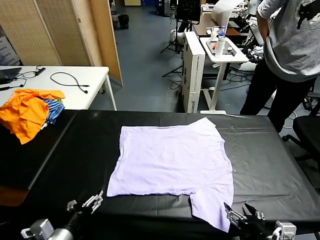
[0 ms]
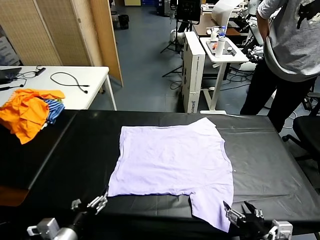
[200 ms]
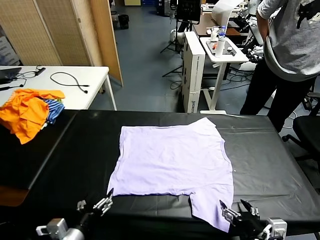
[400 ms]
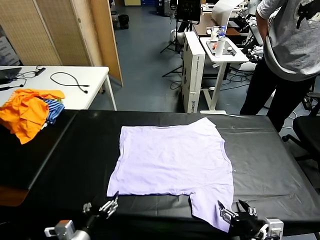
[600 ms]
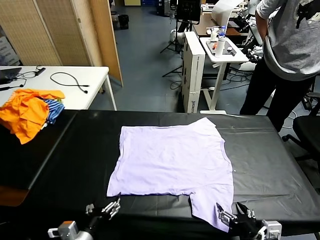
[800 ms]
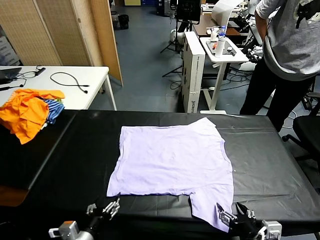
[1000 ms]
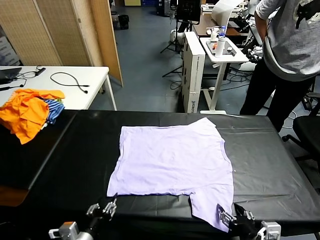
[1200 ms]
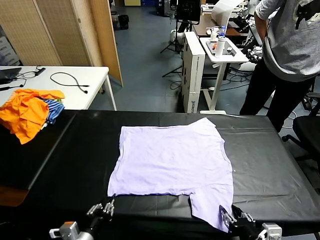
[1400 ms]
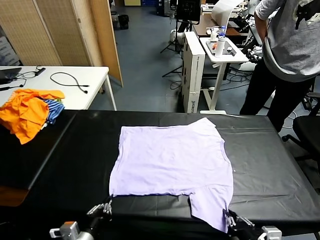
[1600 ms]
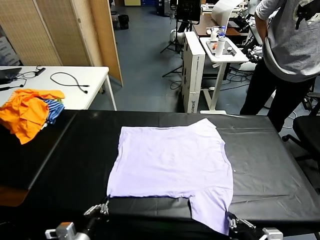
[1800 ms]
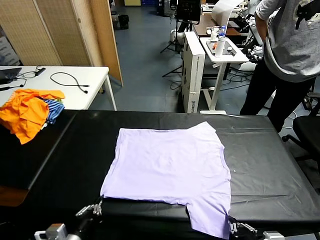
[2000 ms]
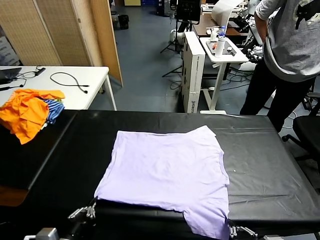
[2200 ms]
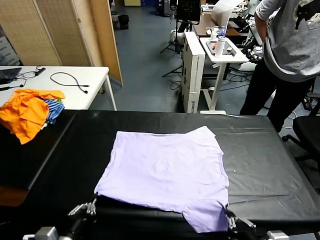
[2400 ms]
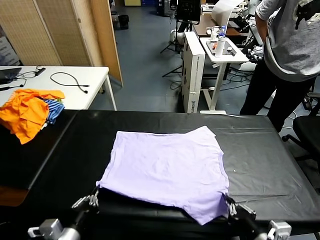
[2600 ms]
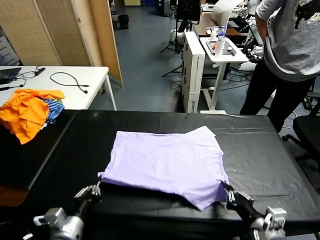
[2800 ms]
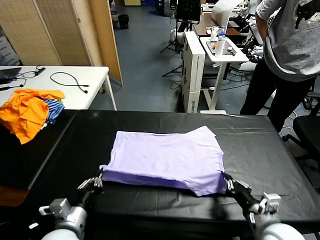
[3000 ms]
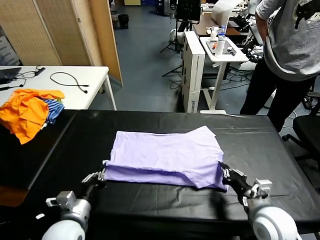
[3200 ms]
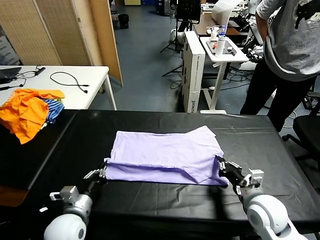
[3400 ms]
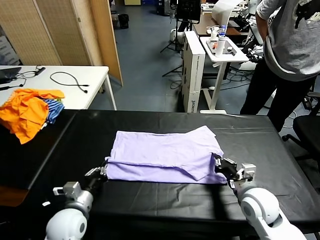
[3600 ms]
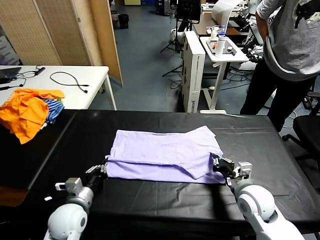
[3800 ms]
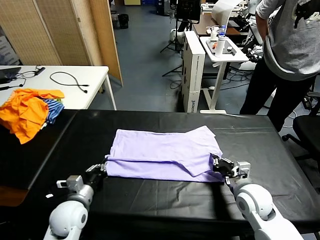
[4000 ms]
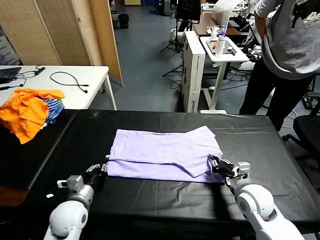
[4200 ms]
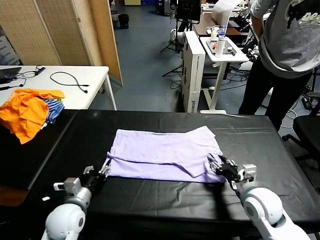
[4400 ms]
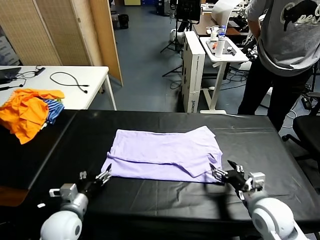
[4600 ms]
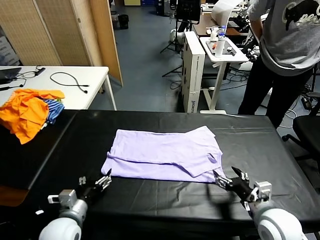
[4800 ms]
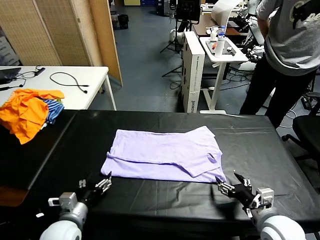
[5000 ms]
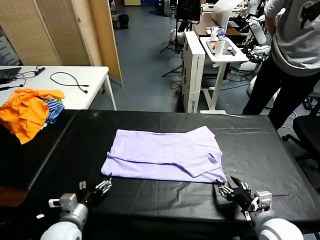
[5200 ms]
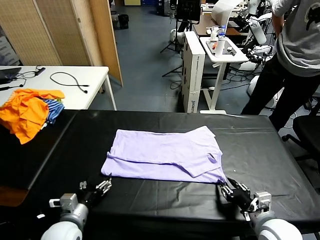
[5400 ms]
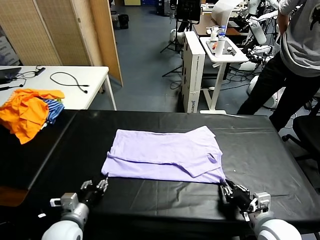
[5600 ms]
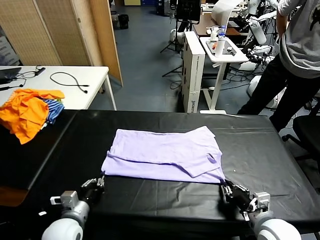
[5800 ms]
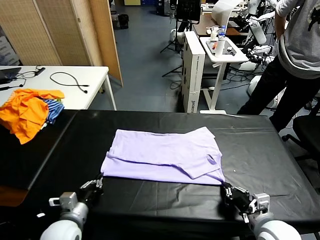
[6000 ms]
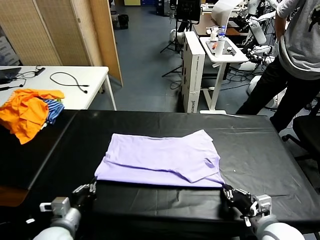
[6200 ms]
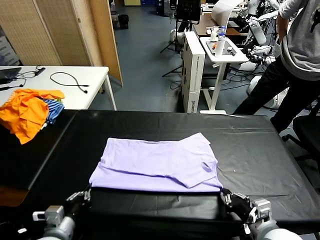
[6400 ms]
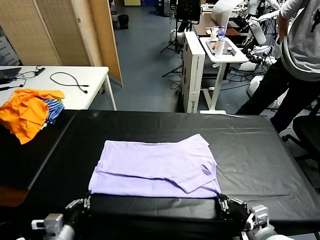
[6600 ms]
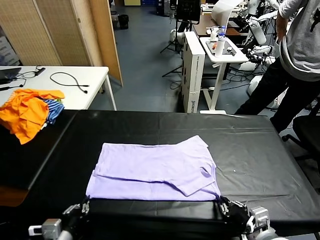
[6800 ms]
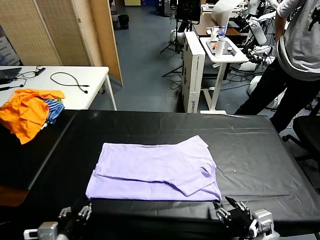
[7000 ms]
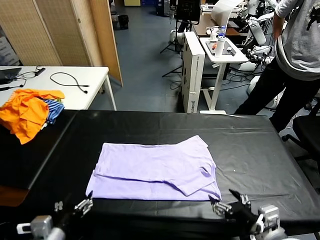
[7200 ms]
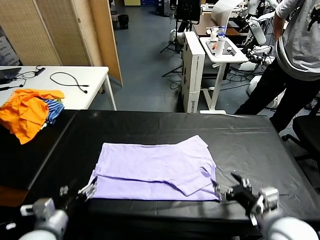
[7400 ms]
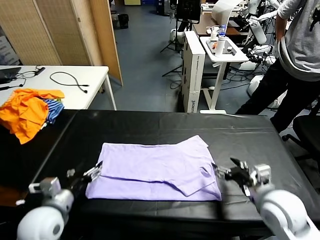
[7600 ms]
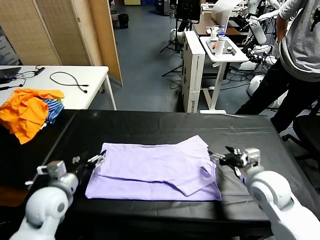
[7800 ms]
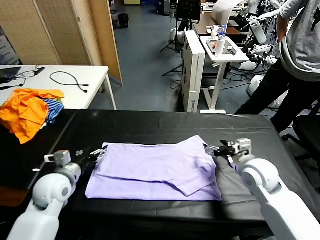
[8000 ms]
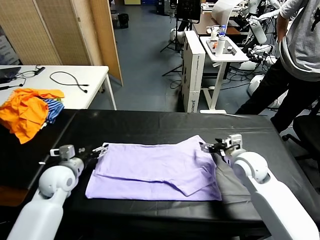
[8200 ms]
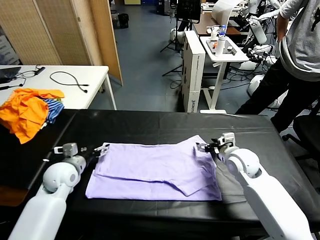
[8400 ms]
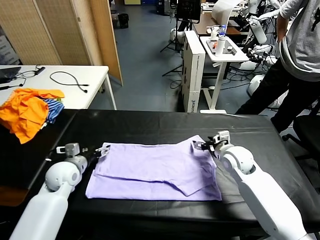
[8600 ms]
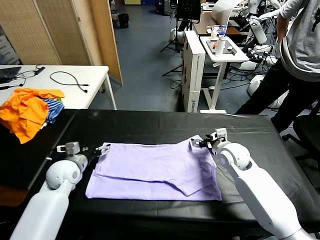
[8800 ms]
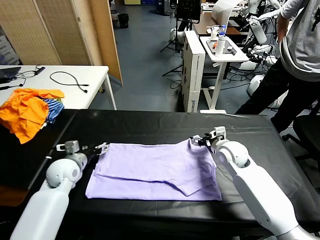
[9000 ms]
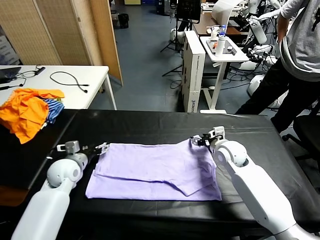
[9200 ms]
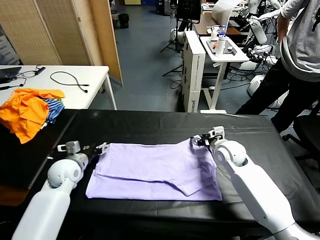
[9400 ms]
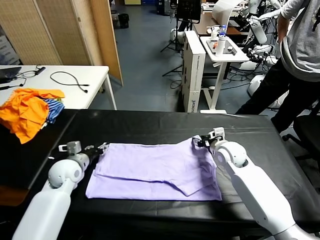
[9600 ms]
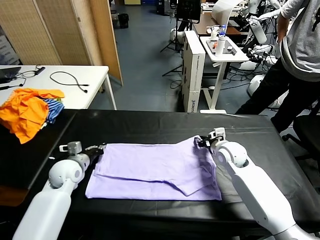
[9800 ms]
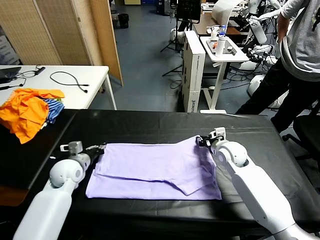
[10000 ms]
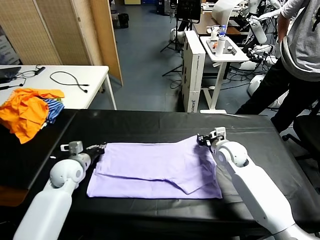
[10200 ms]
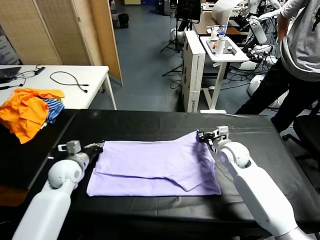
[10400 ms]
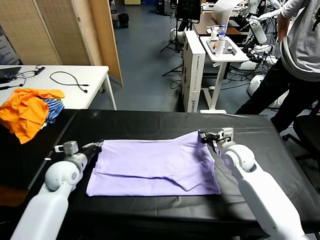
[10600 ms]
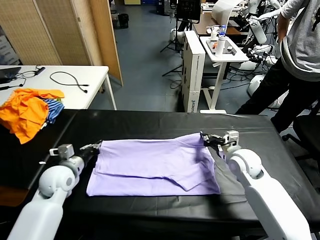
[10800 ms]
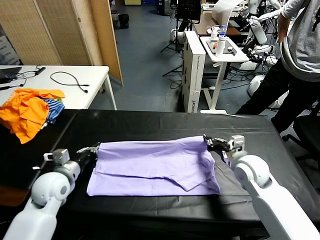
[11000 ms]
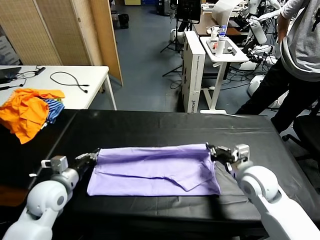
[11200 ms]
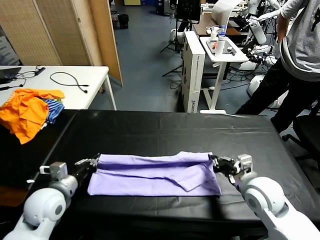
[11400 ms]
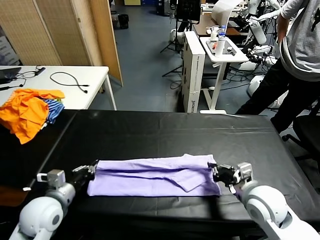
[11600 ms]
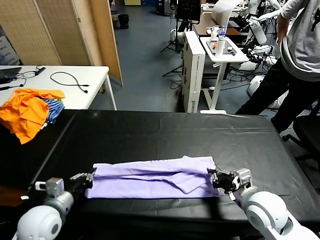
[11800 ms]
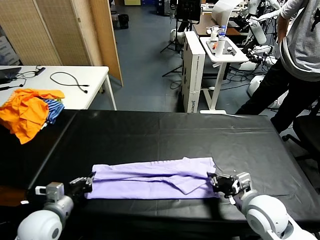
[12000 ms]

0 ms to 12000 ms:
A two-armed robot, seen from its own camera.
Task of the whole recording: fold and organize the clothes.
Step, 0 ms to 1600 ms: use both grippers simultaneously to clamp the lower edge of the clothing fabric.
Step, 1800 ms to 4400 ms: use both grippers to drag the lower edge of the fabric forward and fold it over the upper edge.
Step, 4600 ms to 7000 ms: Drag the clothes downward with both gripper.
Step, 7200 ms to 10000 ms: use both grippers simultaneously to clamp the upper edge of the clothing fabric.
1600 ms to 3000 ms: The left gripper heads forward, covering approximately 5 cm, while the right gripper moves forward, some 15 cm.
3000 ms to 4400 ms: The right gripper reaches approximately 5 cm forward, then returns, and opens. Meanwhile the left gripper moves approximately 5 cm, and opens.
4400 ms to 6000 ms: The left gripper closes up; the right gripper closes.
6000 ms to 7600 ms: The right gripper is displaced forward by roughly 15 cm, and opens; the left gripper is displaced upward by roughly 5 cm, and opens up.
7600 ms to 9000 ms: The left gripper shifts approximately 15 cm forward, while the right gripper is displaced forward and downward by some 15 cm.
9000 ms to 10400 ms: The right gripper closes. The left gripper closes its fingers.
10400 ms to 12000 ms: The two grippers go some 20 cm backward.

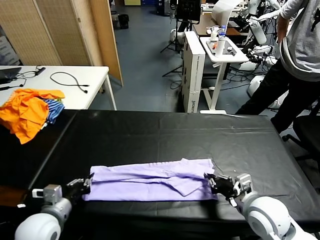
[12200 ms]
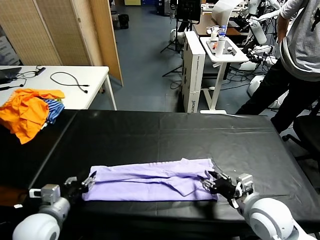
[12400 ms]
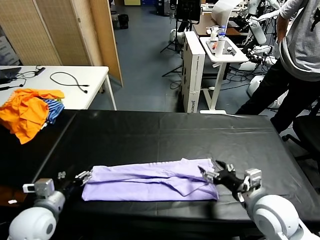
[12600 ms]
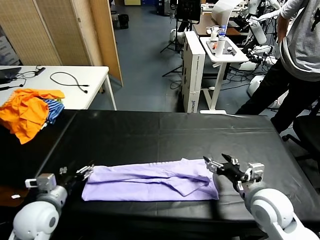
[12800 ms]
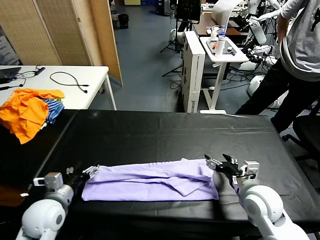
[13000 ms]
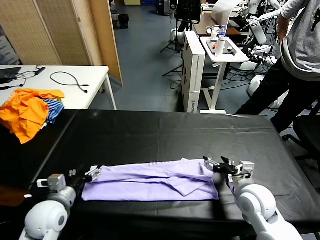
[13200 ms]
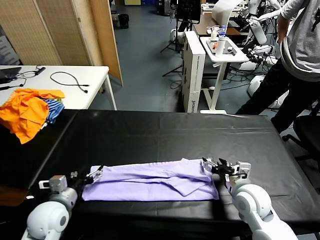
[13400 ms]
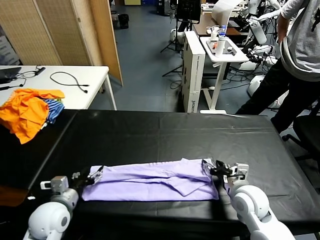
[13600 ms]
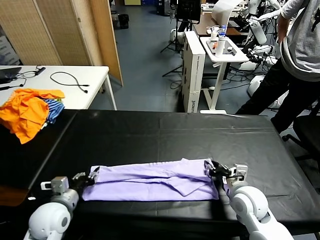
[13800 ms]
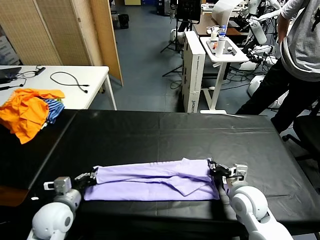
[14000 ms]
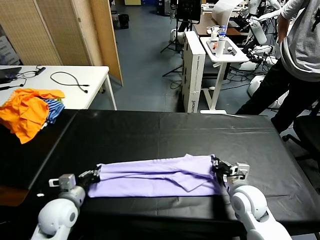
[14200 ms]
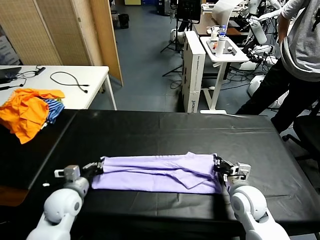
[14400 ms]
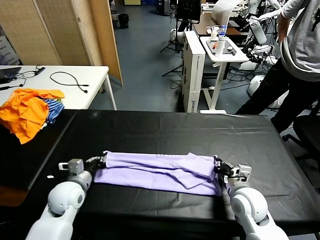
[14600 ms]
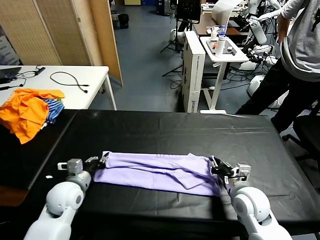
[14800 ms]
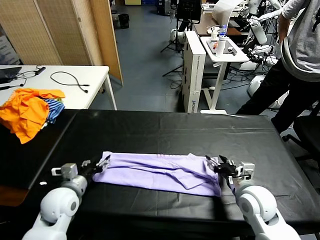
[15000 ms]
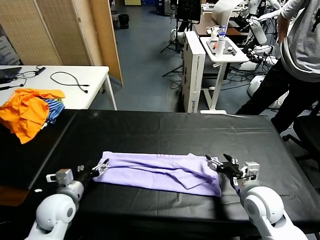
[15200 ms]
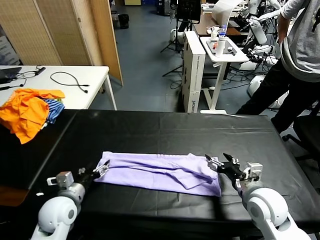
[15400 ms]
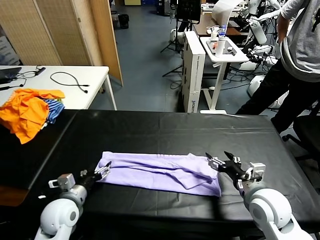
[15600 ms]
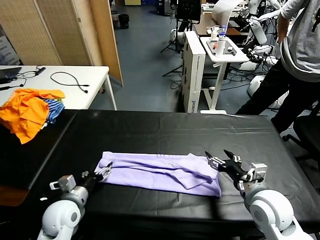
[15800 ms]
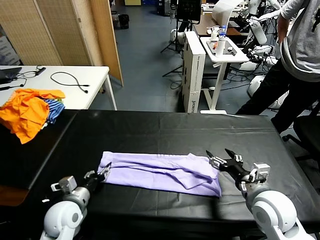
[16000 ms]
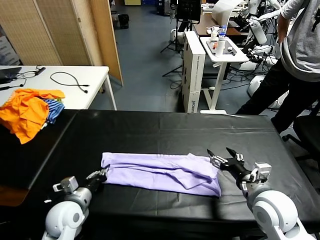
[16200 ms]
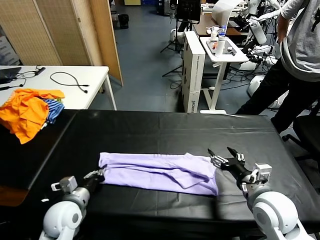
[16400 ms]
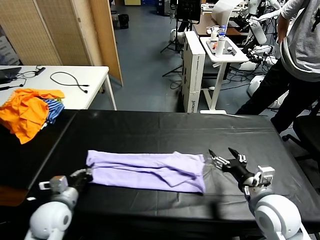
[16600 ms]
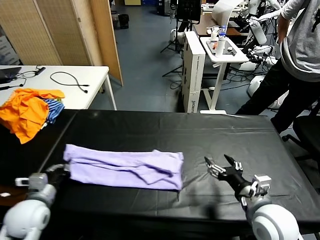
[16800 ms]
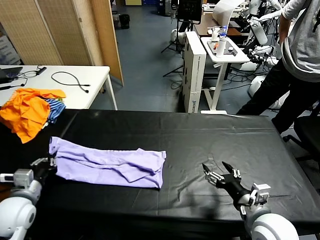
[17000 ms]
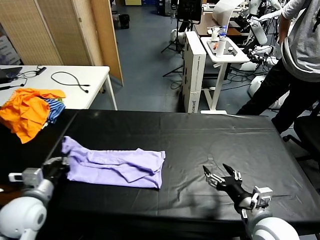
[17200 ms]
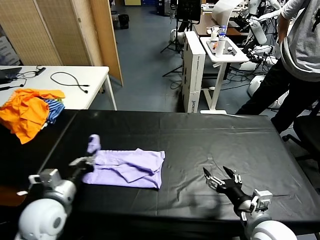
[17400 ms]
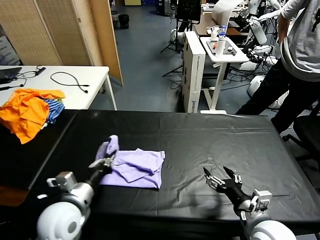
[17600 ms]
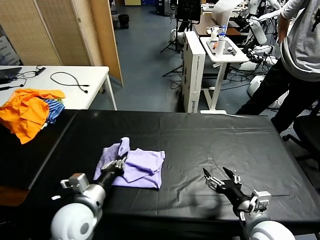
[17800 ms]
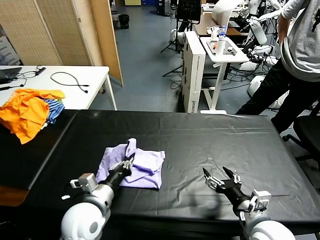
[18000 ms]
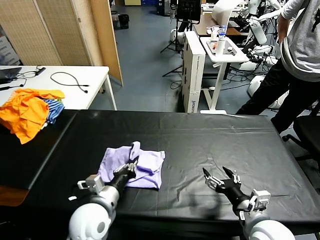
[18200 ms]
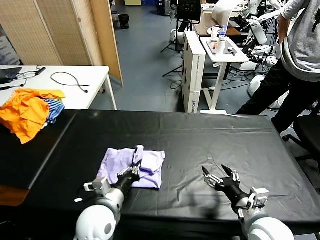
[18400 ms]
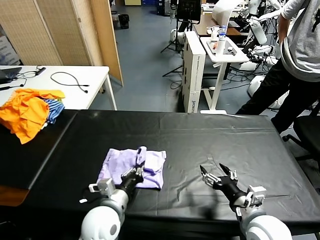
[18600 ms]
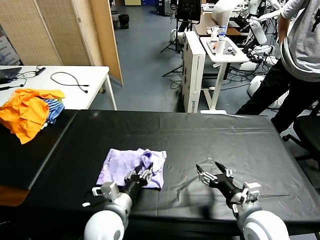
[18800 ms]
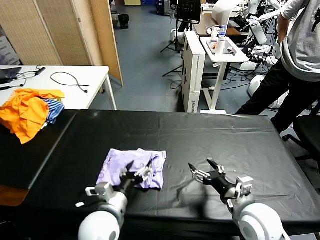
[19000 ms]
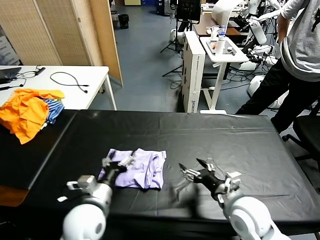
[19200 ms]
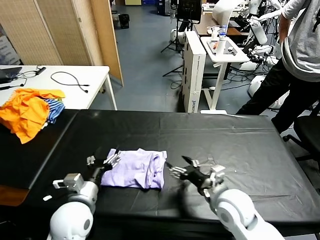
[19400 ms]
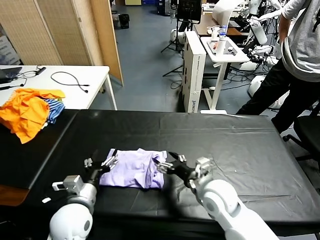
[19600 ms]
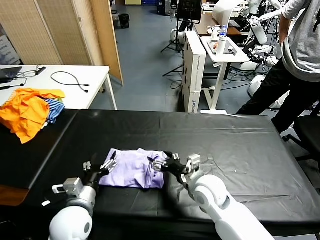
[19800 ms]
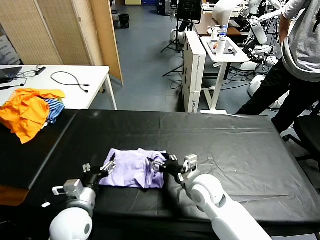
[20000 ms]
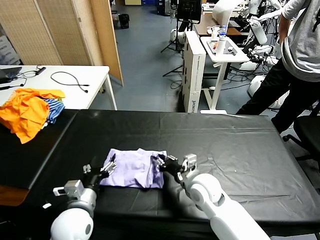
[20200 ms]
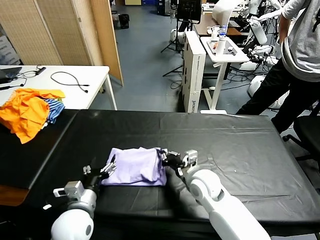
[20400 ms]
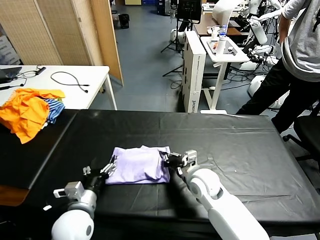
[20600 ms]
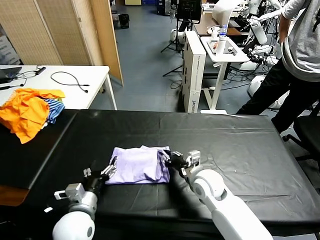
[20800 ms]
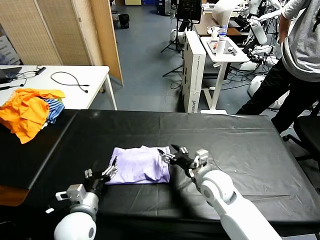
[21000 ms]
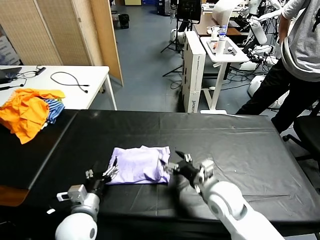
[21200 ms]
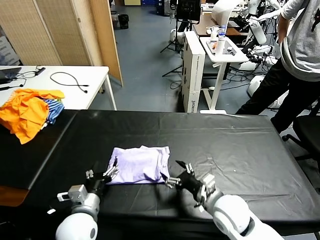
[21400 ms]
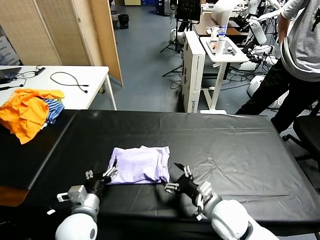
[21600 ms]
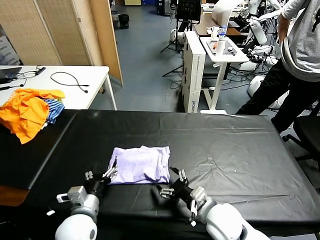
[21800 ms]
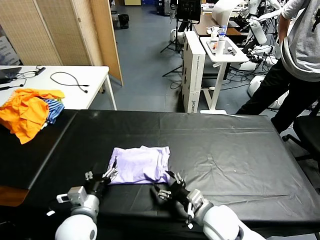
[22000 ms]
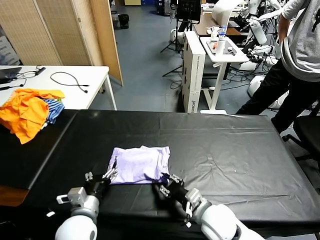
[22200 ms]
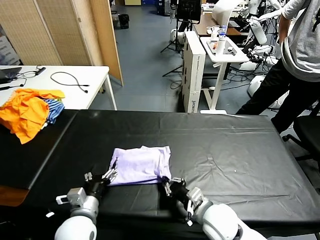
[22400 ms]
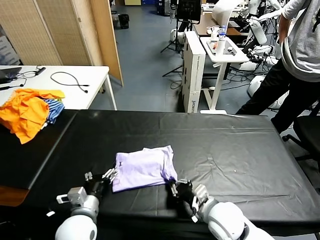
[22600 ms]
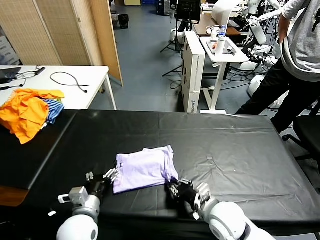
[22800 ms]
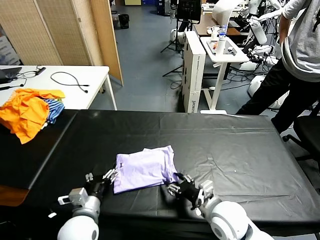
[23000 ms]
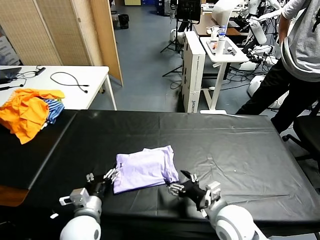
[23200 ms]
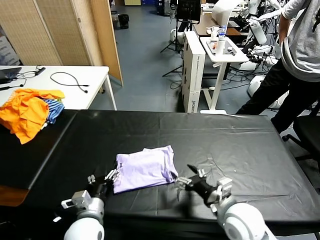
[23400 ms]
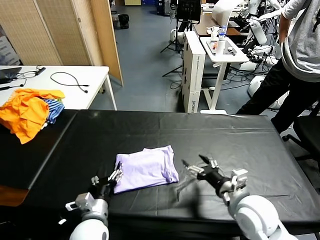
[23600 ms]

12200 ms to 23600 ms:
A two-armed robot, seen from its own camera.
Task of the whole recording: fold and organize the clothes.
Step, 12200 ms to 15000 ms: use both grippers to drag the upper edge of the fabric backward and fold it over the lower edge.
Step, 15200 ms to 16200 ms: use the left gripper to clamp the left edge of the fabric.
Step, 16400 ms to 23200 ms: use the left gripper to drag the left edge of the fabric to the left and folds it over the right edge.
12200 ms to 13600 ms: The left gripper opens. Meanwhile the right gripper moves downward and forward, some 10 cm, and opens, then closes again.
13600 ms to 15000 ms: The left gripper closes and opens again. The right gripper opens.
15000 ms to 16400 ms: The left gripper closes up. The right gripper ends up approximately 5 cm from where it was.
16400 ms to 17800 ms: The right gripper travels backward by some 5 cm. The left gripper moves to the right and upward, some 10 cm.
17800 ms to 19400 ms: The right gripper shifts some 15 cm forward and to the left. Meanwhile the left gripper goes to the right and returns, roughly 5 cm each way, and opens up.
19400 ms to 20800 ms: The right gripper heads forward, covering approximately 5 cm, and closes.
20800 ms to 22200 ms: The right gripper shifts some 10 cm backward, and opens, then closes again.
22200 ms to 23600 ms: The right gripper is displaced to the right and upward by about 15 cm, and opens its fingers.
